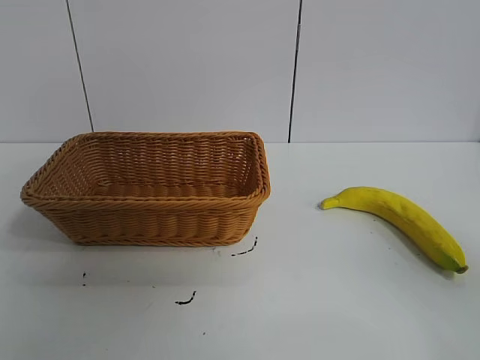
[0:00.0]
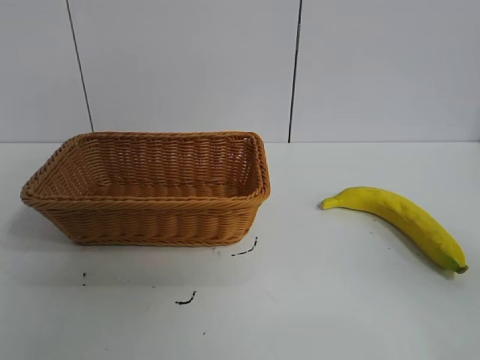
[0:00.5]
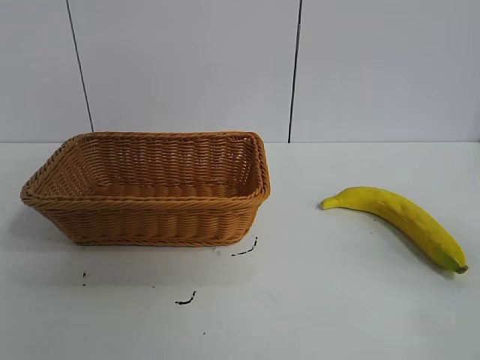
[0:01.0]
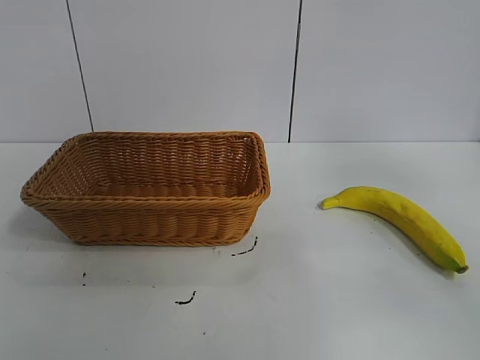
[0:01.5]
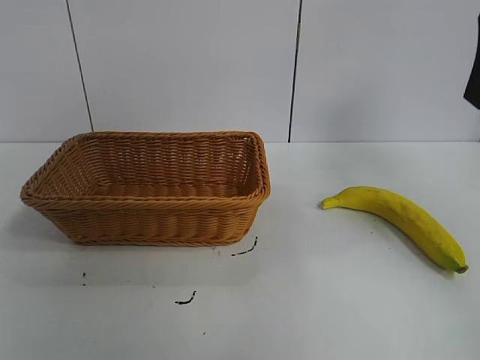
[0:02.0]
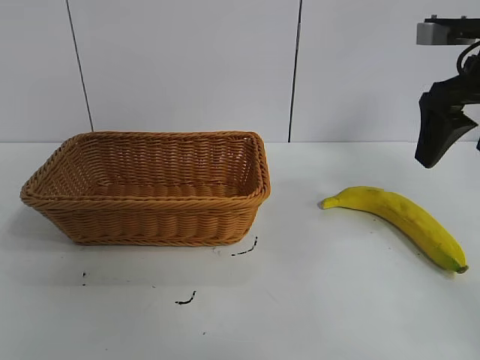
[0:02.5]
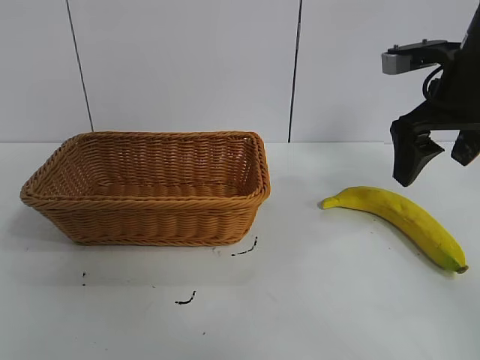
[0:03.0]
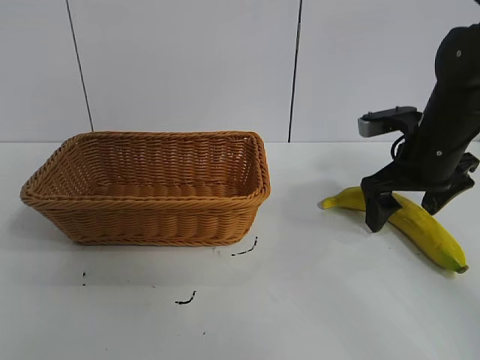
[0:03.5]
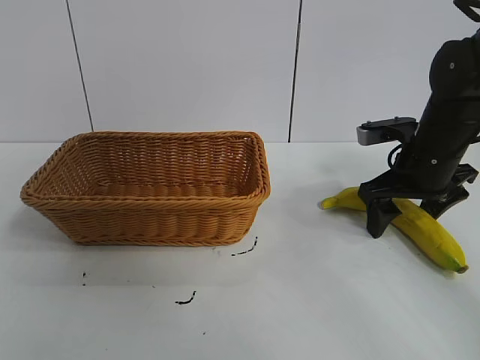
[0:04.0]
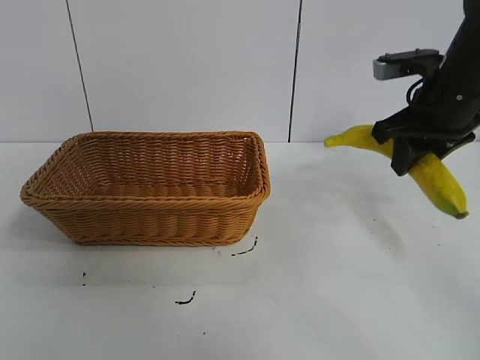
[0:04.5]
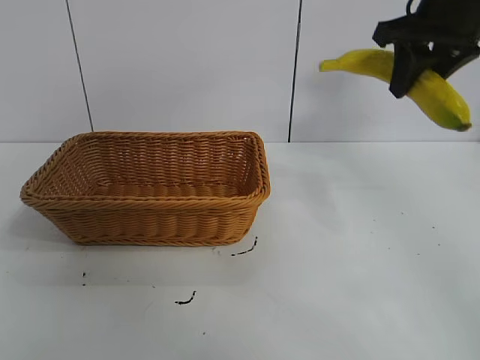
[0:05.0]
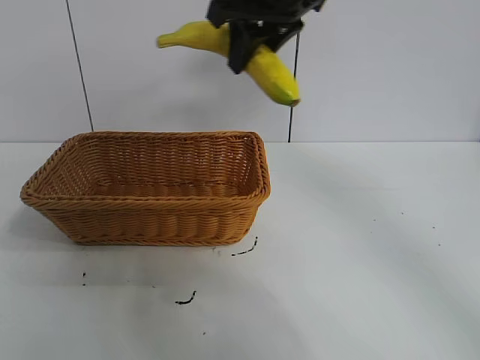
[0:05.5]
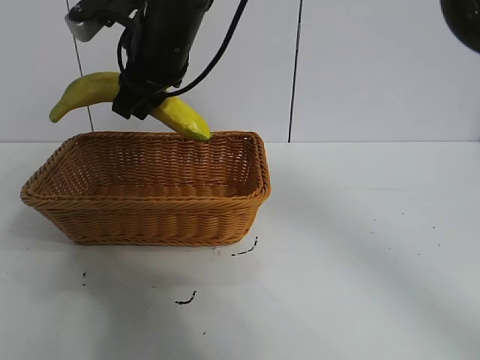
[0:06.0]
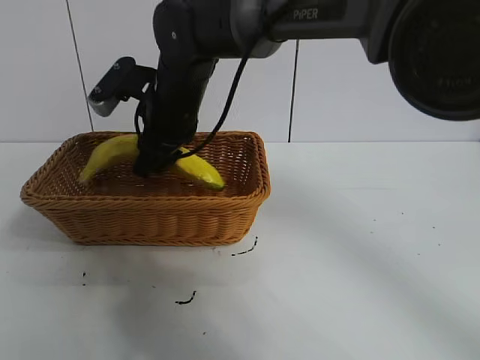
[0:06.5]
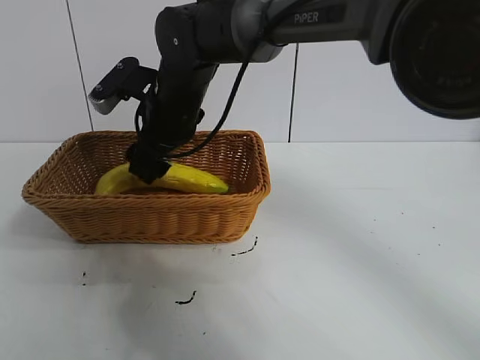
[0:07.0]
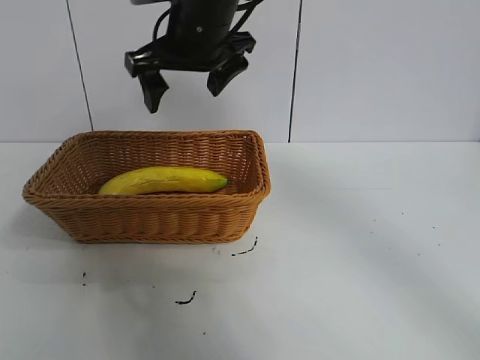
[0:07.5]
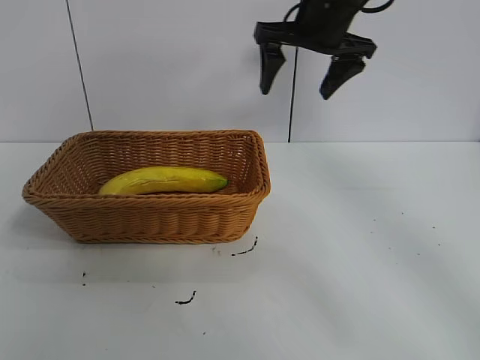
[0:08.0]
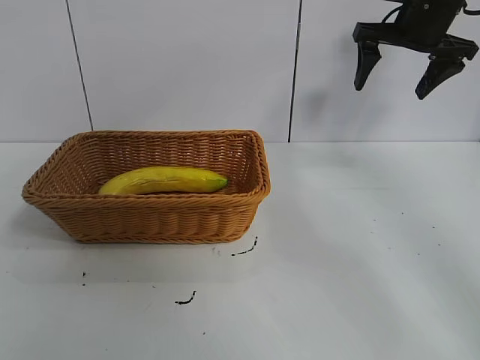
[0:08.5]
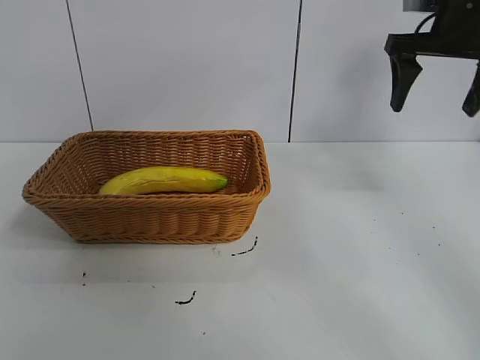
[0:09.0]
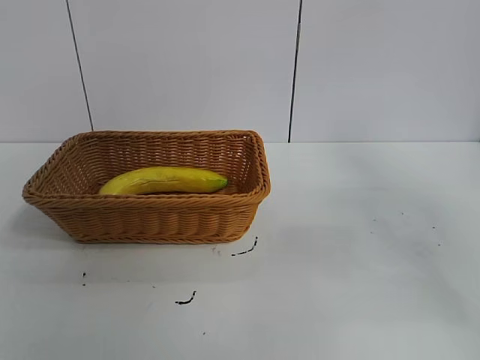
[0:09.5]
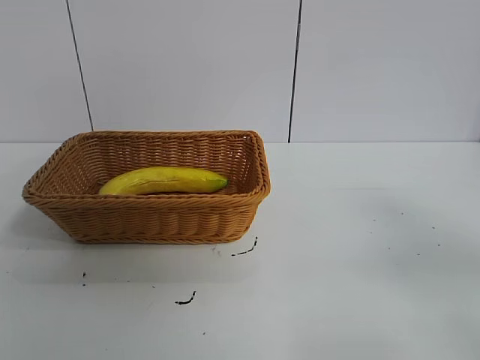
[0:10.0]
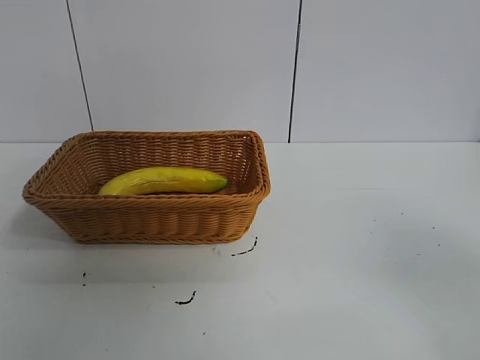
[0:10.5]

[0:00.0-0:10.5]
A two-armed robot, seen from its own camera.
Task of the whole recording: pick up the banana and put it into the basket.
Step, 0:01.0 to 0:04.0: Grasp the banana with right gripper.
Step, 0:04.5 to 0:07.0: Place the banana in the basket with right gripper.
